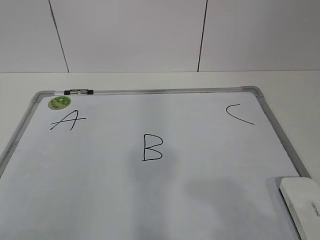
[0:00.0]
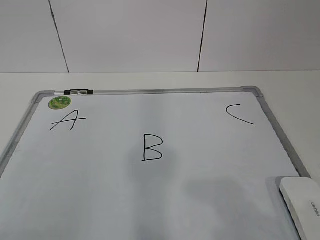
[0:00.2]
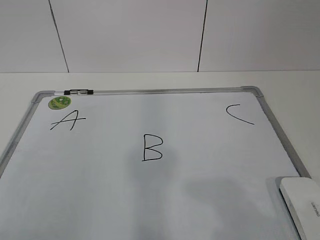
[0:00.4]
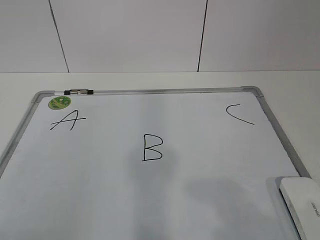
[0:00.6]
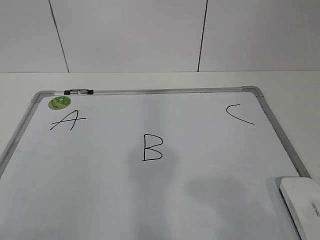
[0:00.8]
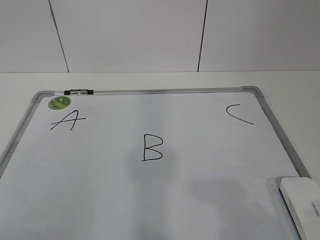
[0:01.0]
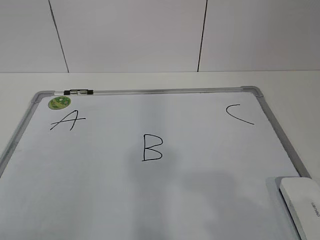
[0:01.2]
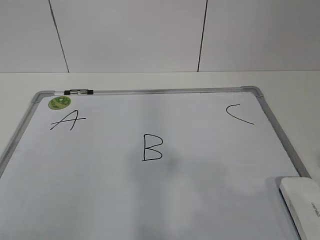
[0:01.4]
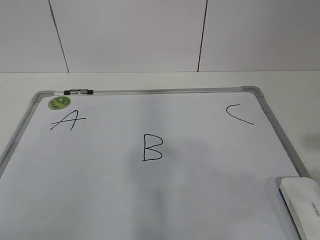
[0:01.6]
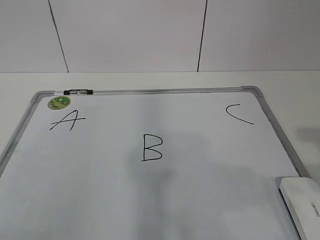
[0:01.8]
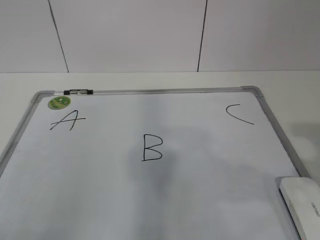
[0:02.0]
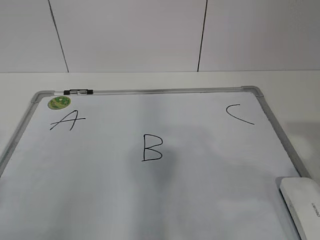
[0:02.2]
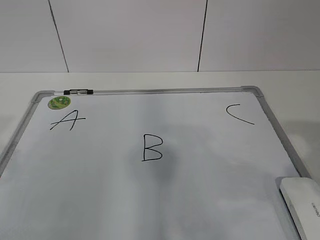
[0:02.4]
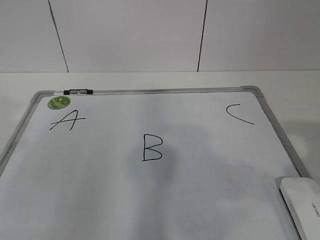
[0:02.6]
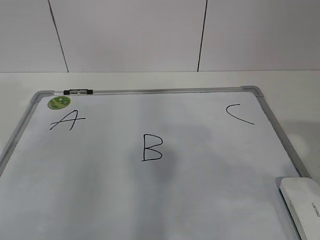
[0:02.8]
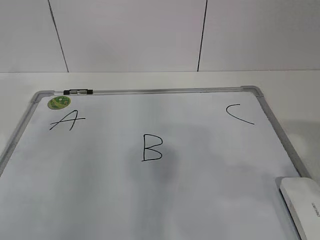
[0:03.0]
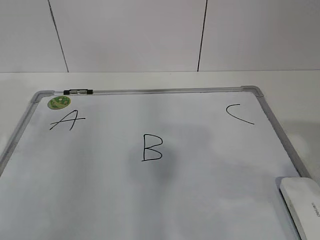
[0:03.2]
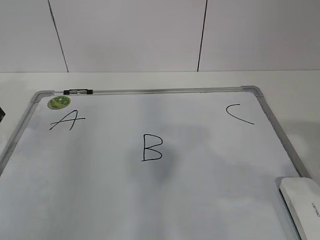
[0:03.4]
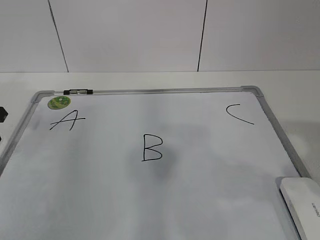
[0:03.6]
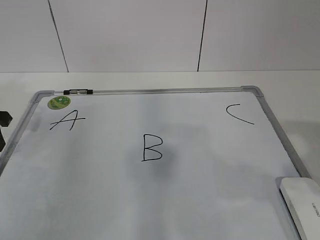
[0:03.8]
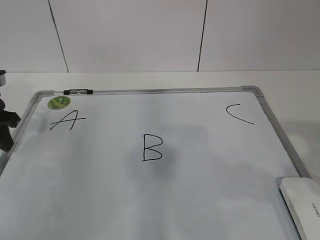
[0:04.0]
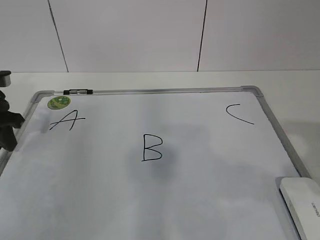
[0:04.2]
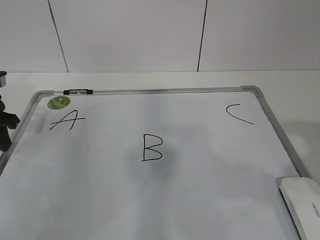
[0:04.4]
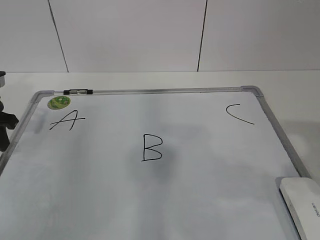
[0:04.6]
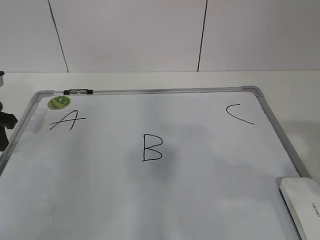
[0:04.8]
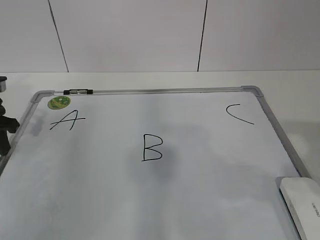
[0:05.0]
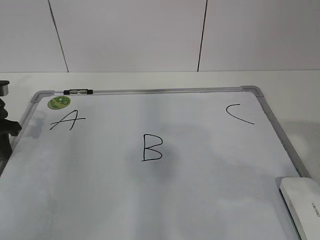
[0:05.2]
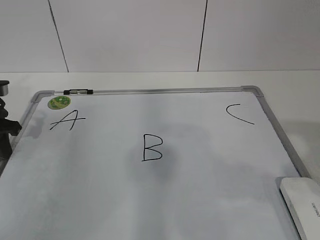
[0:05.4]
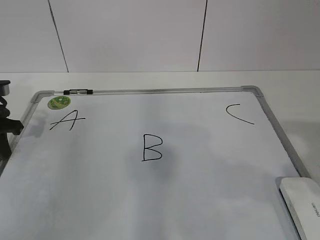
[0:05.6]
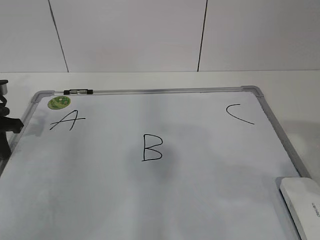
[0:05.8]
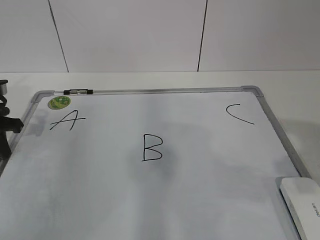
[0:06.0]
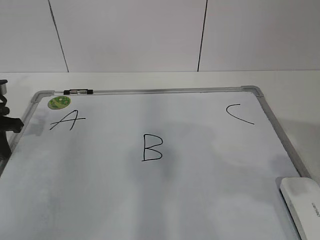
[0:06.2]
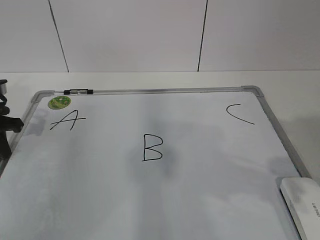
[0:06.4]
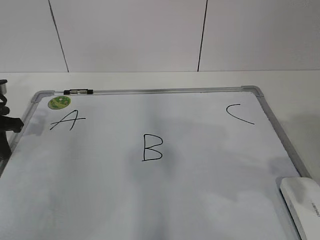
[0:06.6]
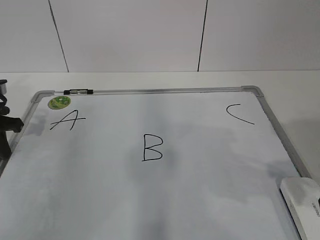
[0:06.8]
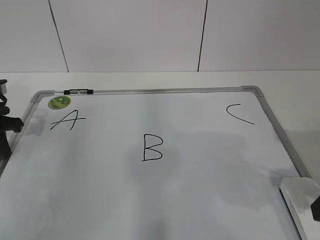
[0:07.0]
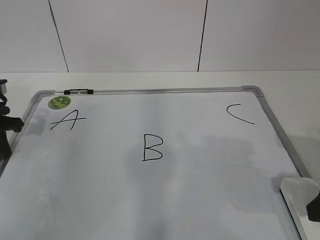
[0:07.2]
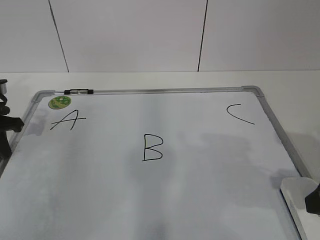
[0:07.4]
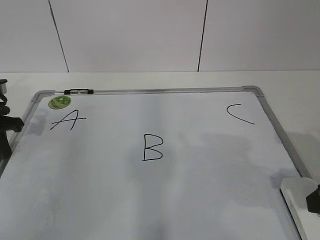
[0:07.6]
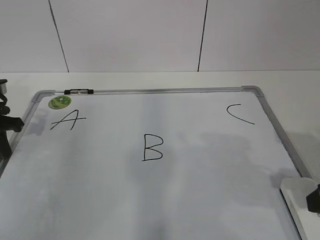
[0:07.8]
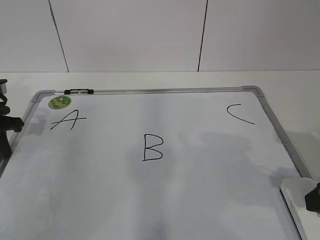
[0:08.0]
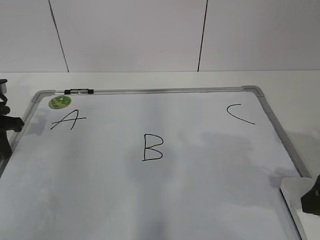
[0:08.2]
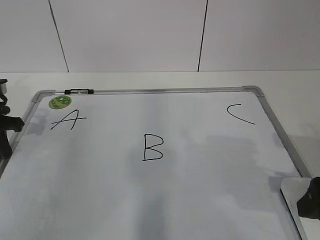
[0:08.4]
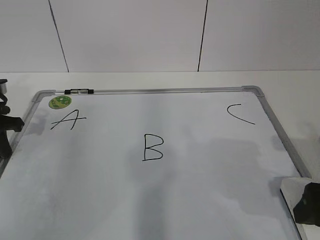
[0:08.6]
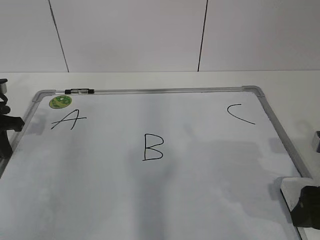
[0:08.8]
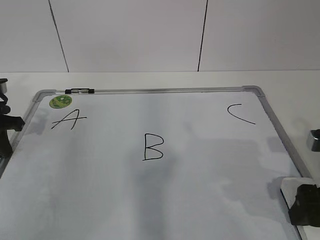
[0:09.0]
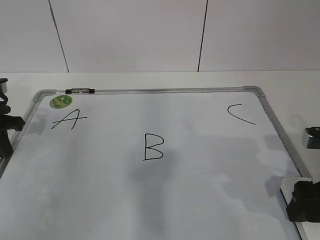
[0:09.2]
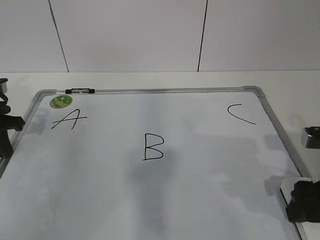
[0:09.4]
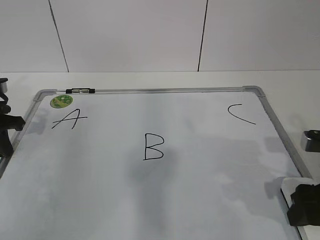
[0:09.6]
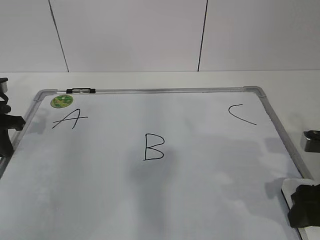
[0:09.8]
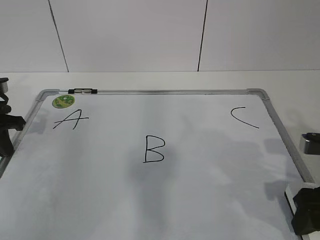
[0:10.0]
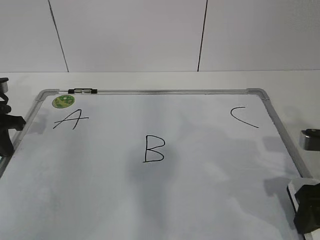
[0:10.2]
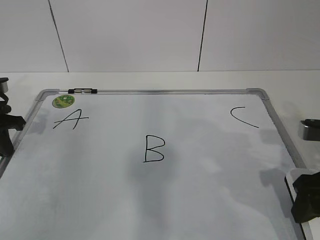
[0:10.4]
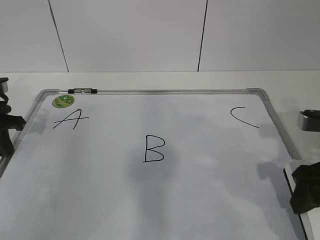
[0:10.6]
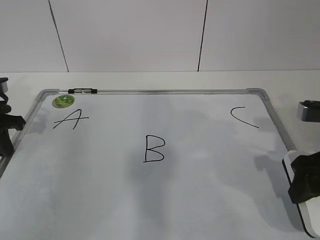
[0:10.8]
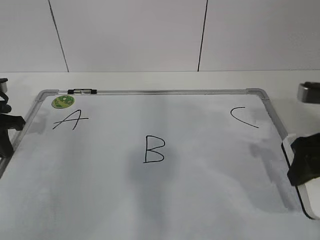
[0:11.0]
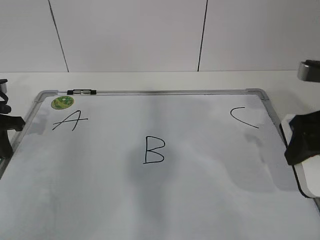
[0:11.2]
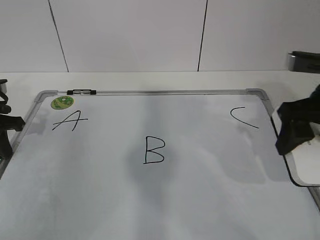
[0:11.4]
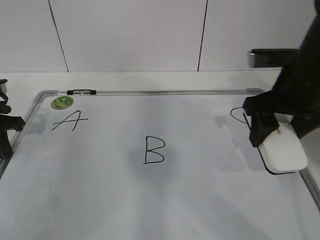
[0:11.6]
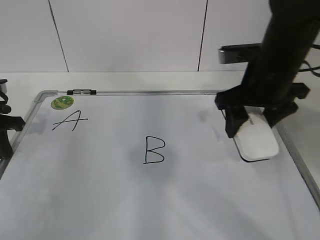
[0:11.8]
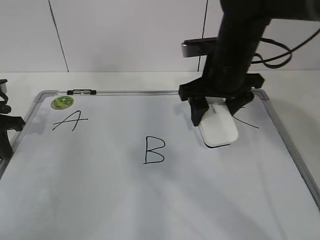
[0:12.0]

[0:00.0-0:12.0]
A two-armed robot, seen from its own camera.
Task of the whole recording: pick up the eraser on the blackboard and erase the letter "B".
0:03.0 to 0:04.4: The left gripper goes about 10 cm downward.
0:04.4 to 0:06.0: The left gripper closes its fingers.
0:06.0 to 0:07.6: The right gripper goes some 10 cm downward and forward, and opens up.
0:07.6 to 0:09.0: The right gripper opens up.
0:09.0 to 0:10.4: The right gripper closes up.
0:10.4 to 0:12.0: The right gripper heads forward and to the left, covering approximately 20 cm.

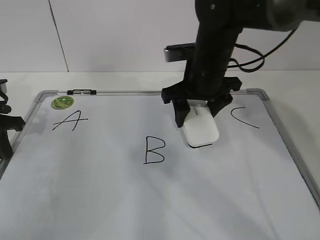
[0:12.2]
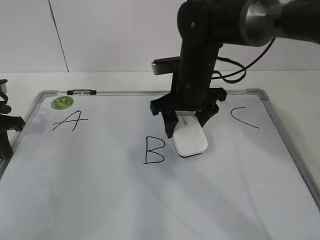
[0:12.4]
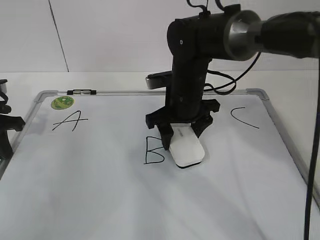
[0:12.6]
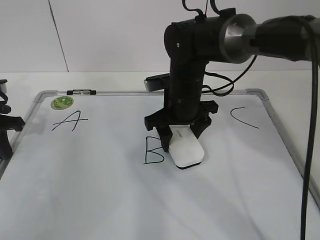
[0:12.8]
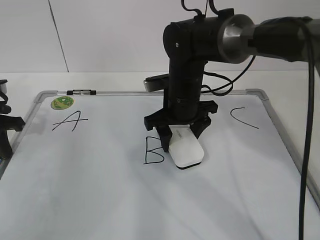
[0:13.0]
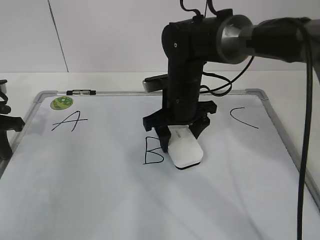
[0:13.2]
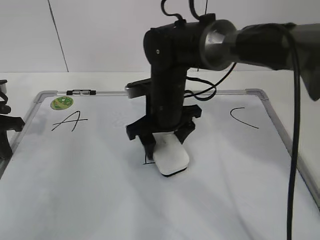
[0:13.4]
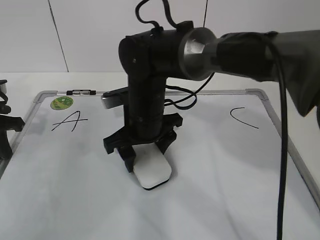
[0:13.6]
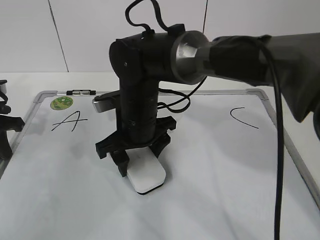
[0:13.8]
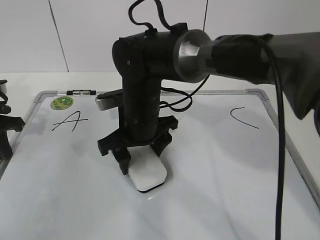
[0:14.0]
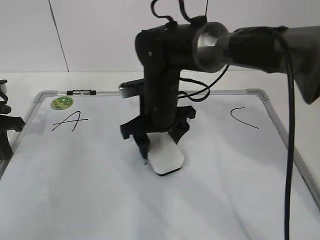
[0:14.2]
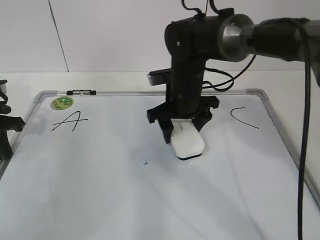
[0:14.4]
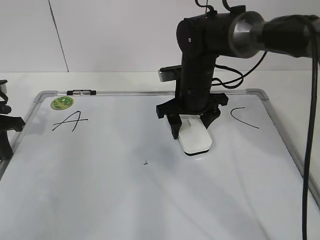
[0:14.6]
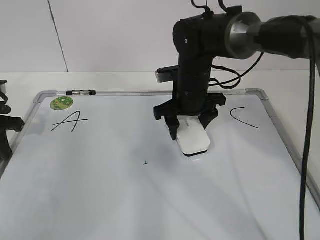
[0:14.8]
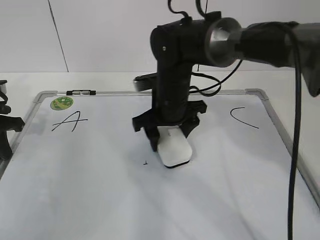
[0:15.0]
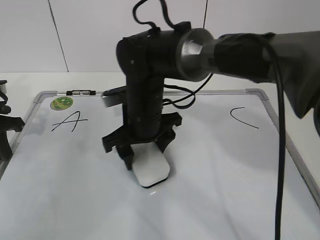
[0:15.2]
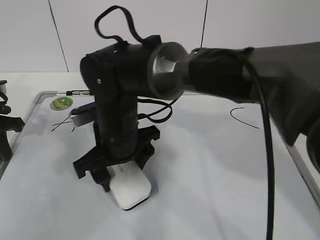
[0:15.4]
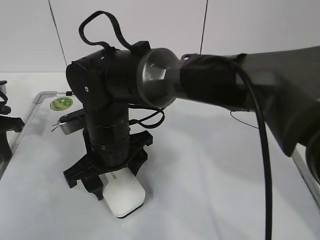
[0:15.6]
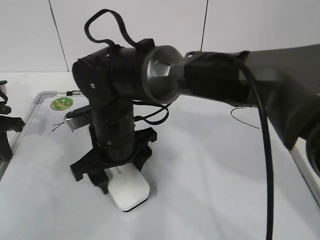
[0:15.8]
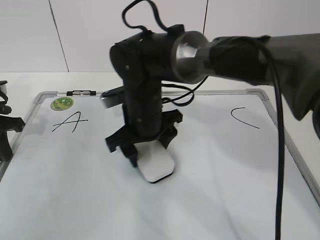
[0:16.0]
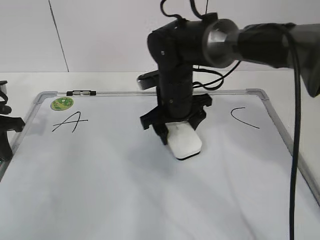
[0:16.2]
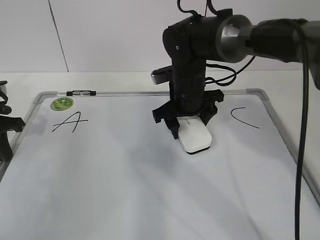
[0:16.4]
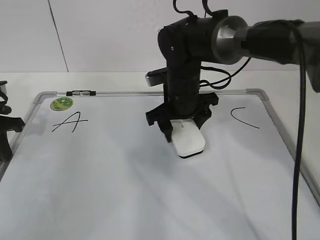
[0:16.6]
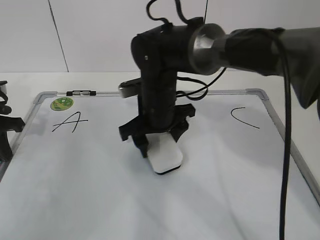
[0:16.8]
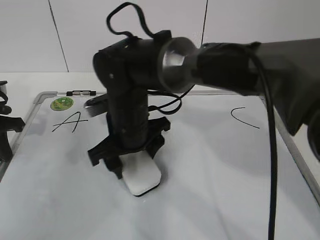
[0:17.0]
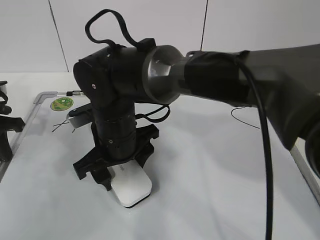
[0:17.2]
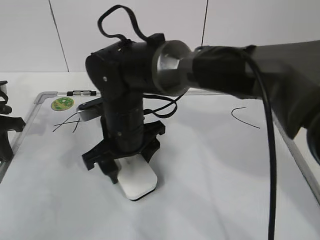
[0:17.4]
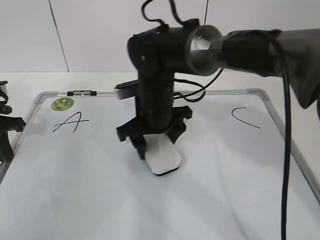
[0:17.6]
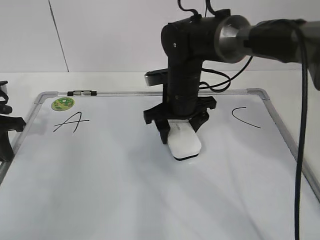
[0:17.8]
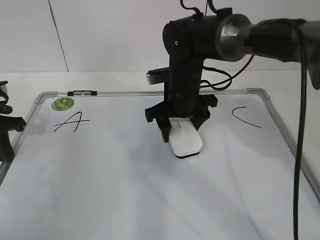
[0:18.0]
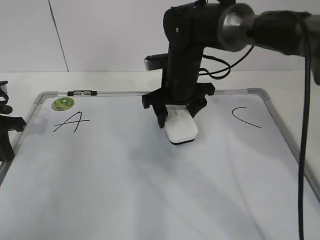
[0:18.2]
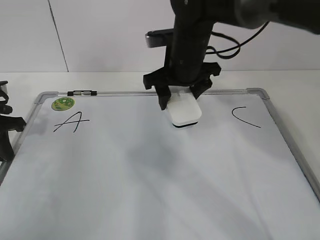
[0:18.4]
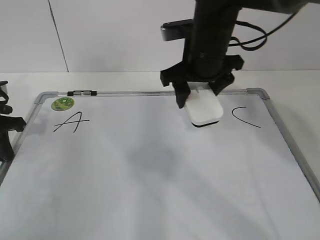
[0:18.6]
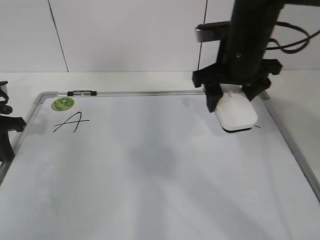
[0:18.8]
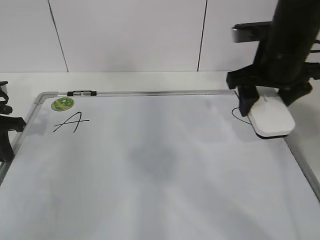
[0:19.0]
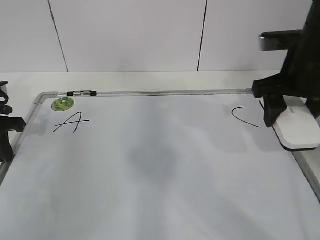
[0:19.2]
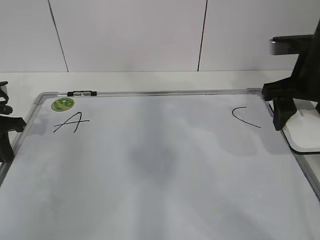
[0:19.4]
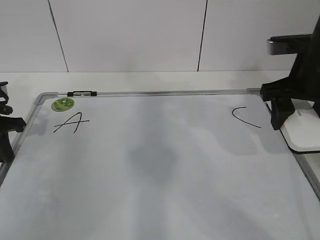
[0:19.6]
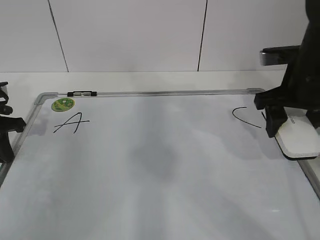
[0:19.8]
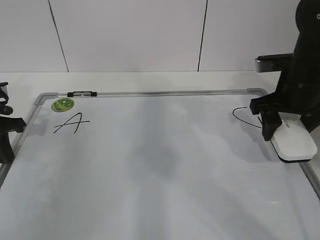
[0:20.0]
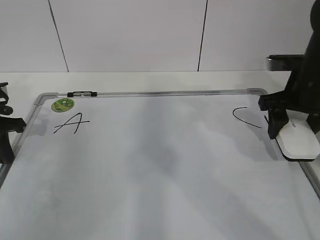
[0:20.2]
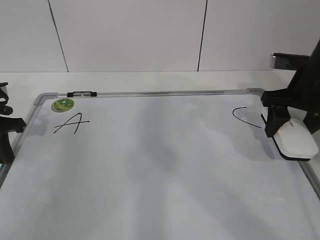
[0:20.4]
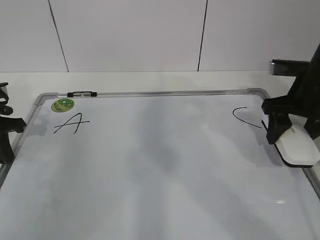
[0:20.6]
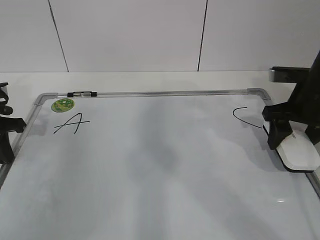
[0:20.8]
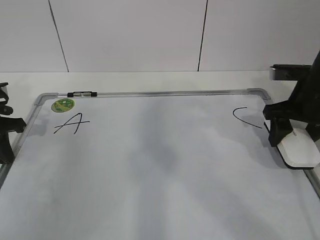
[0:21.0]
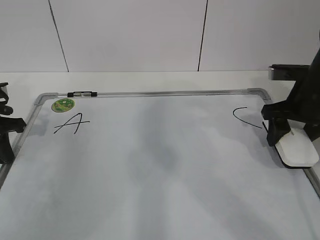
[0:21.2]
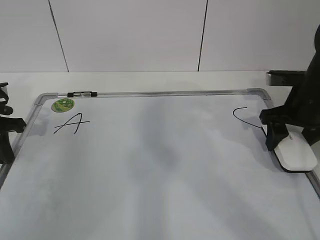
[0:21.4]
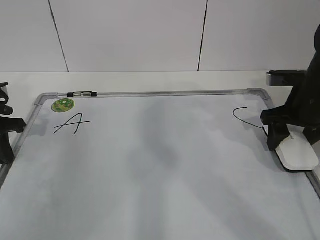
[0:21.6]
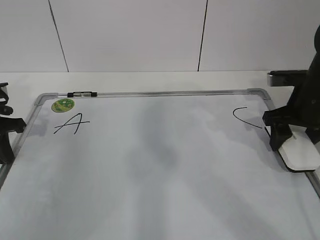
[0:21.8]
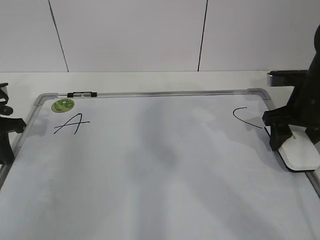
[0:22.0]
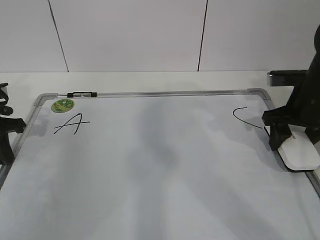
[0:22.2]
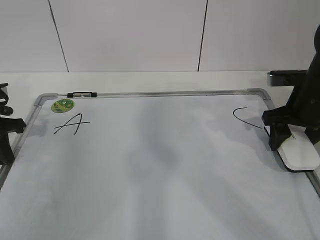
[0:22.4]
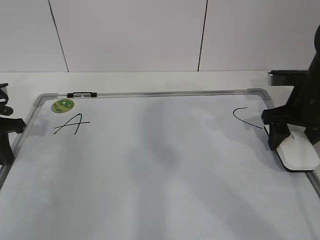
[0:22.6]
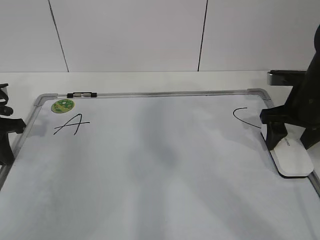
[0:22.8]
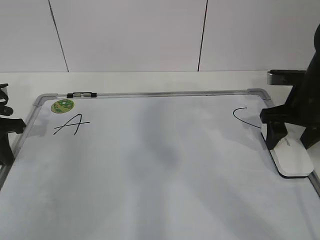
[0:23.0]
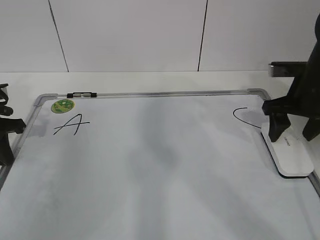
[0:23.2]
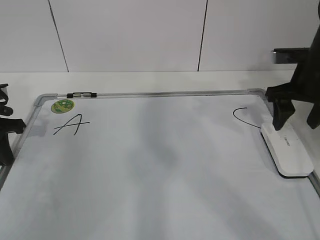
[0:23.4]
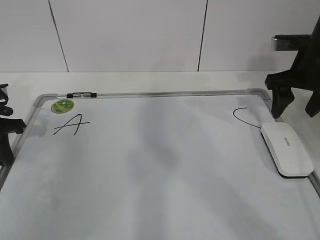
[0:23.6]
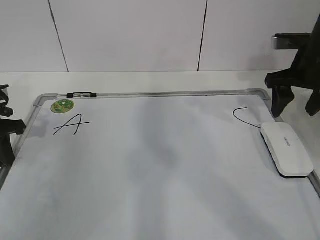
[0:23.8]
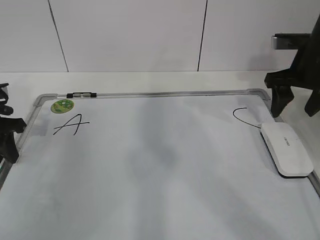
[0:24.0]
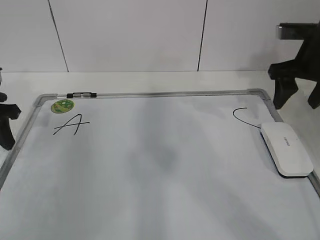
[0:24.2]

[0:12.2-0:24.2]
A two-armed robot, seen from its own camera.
Task of the whole recording: pick up the eraser on the blackboard and erase the letter "B".
Step, 0:12.2 to 0:14.8: Erase the letter B with your right hand.
Step, 0:15.2 to 0:19.0: Put down the eraser with your right hand.
0:12.2 to 0:13.8: The right gripper moves to the left and downward, about 15 cm.
0:13.8 to 0:15.2: The right gripper travels to the right and back again, roughly 10 cm each way.
0:15.2 to 0:16.6: The right gripper heads to the right and forward, covering approximately 10 cm.
0:16.6 to 0:18.2: The right gripper travels to the left and back again, about 10 cm each way.
0:18.2 to 0:19.8: The right gripper is displaced to the right and backward by approximately 20 cm.
0:19.8 to 0:21.2: The right gripper shifts by about 5 cm.
0:21.2 to 0:22.6: The two grippers keep their place.
0:22.6 to 0:24.2: The left gripper opens its fingers. Meanwhile the right gripper moves upward, roughly 10 cm.
